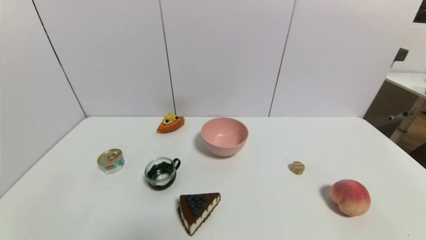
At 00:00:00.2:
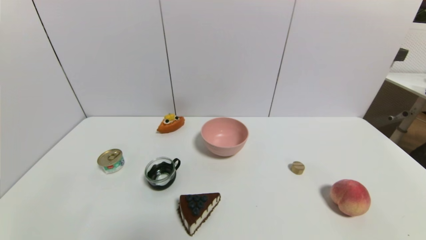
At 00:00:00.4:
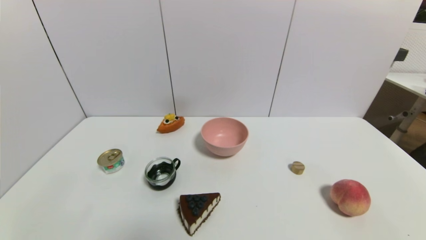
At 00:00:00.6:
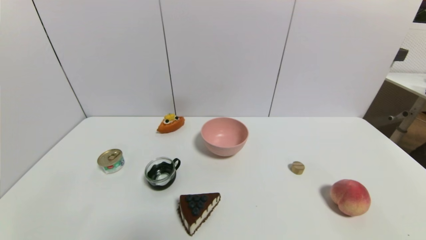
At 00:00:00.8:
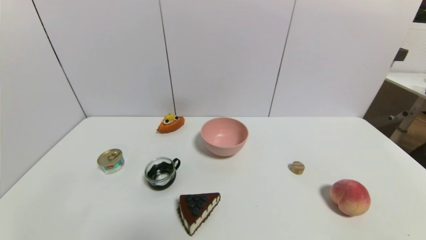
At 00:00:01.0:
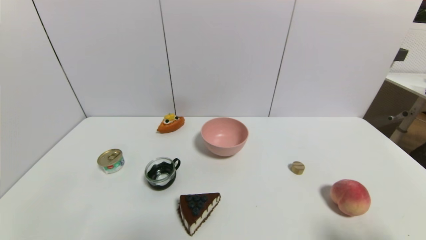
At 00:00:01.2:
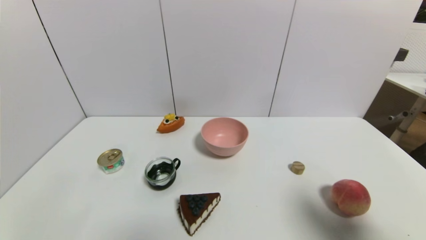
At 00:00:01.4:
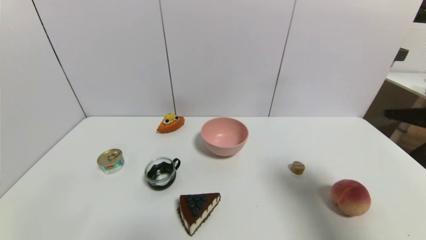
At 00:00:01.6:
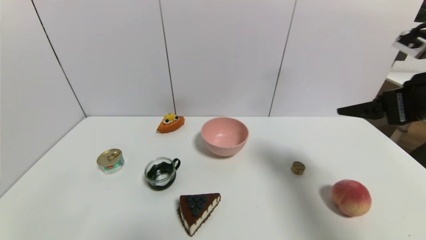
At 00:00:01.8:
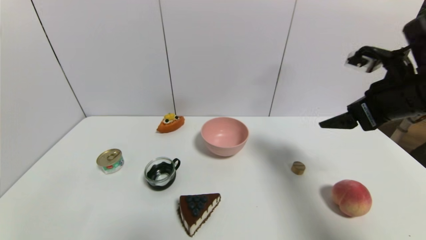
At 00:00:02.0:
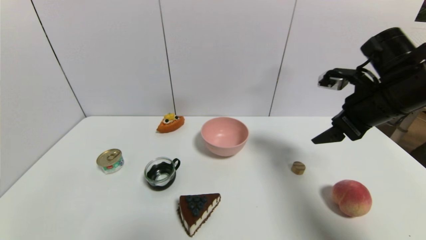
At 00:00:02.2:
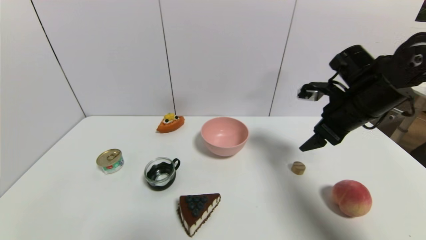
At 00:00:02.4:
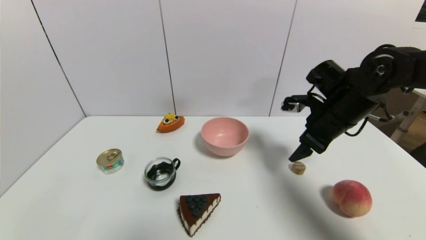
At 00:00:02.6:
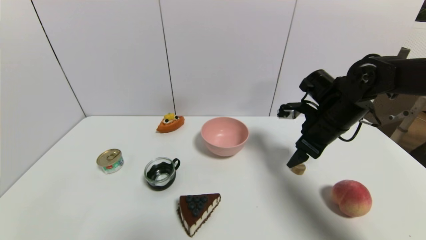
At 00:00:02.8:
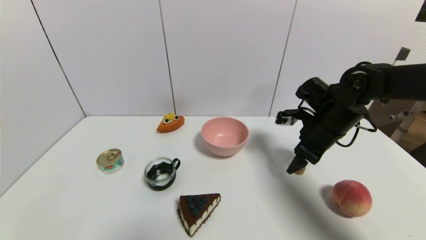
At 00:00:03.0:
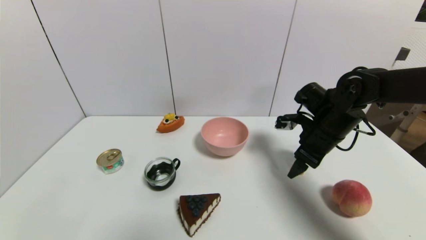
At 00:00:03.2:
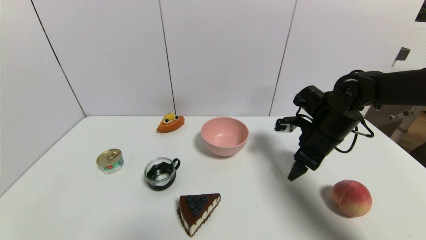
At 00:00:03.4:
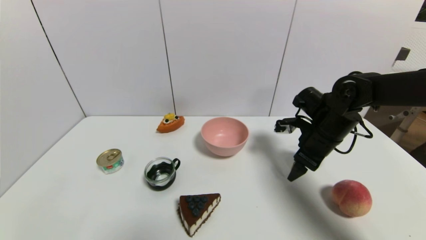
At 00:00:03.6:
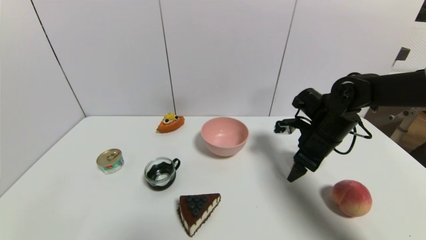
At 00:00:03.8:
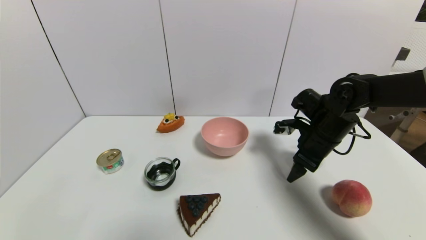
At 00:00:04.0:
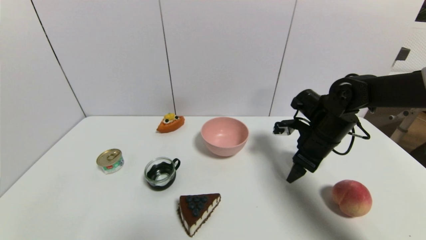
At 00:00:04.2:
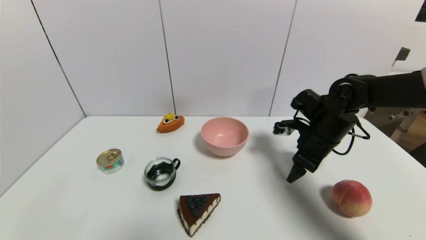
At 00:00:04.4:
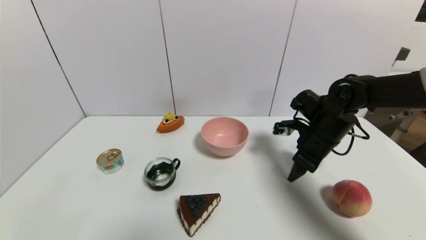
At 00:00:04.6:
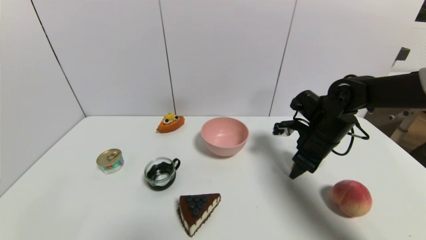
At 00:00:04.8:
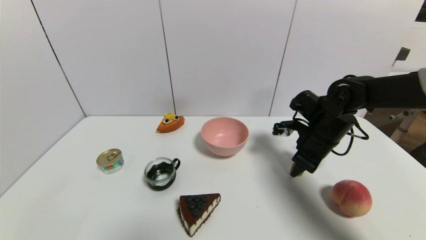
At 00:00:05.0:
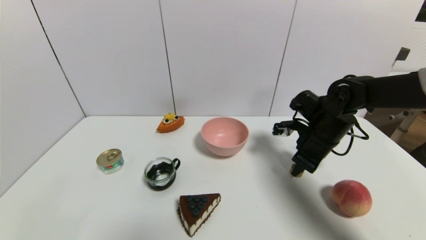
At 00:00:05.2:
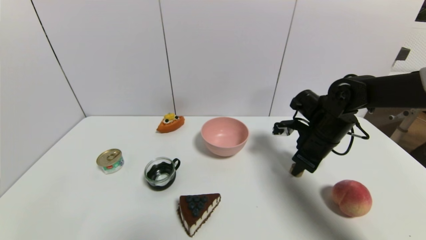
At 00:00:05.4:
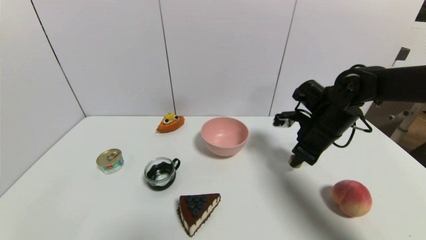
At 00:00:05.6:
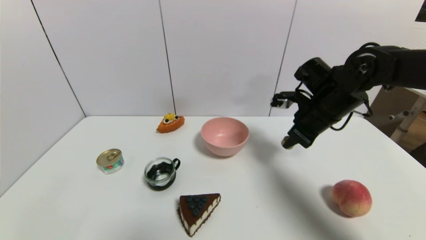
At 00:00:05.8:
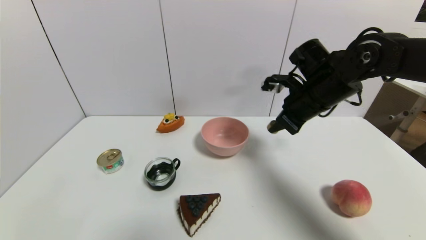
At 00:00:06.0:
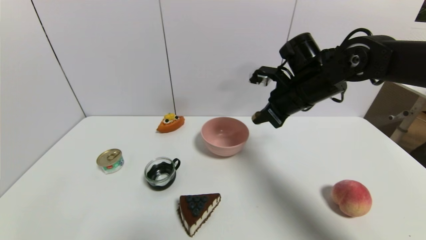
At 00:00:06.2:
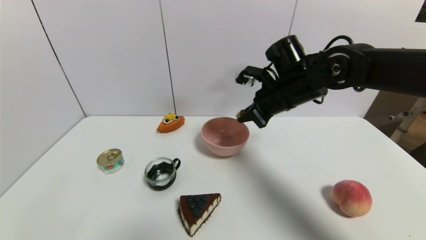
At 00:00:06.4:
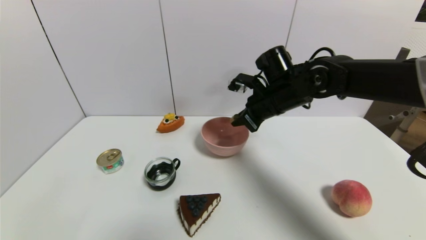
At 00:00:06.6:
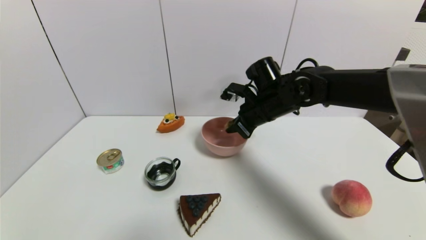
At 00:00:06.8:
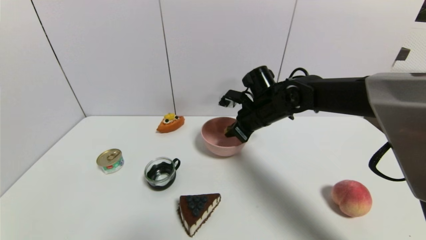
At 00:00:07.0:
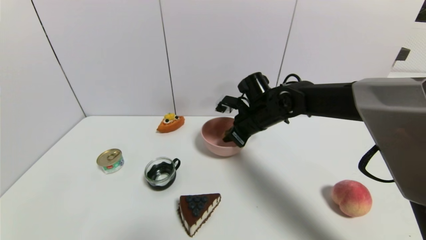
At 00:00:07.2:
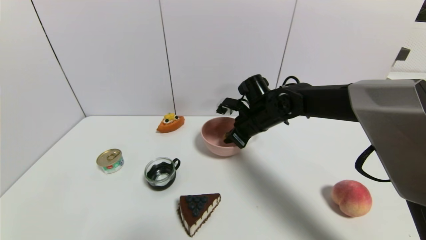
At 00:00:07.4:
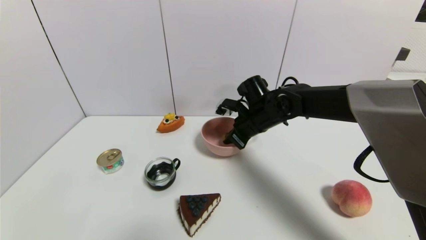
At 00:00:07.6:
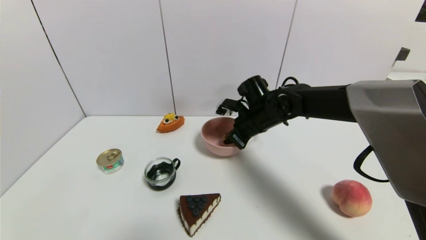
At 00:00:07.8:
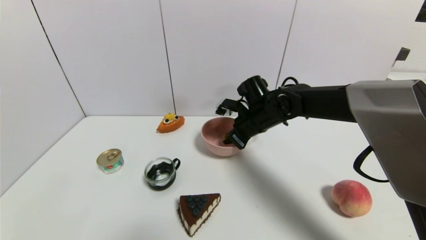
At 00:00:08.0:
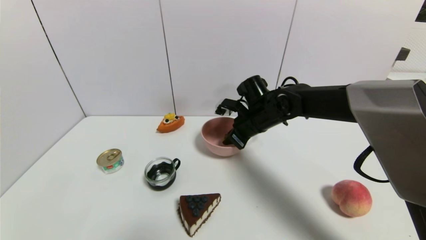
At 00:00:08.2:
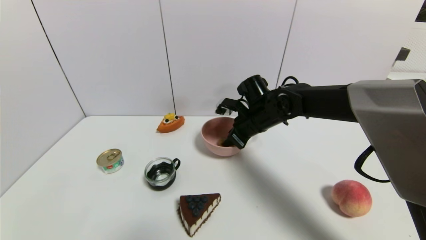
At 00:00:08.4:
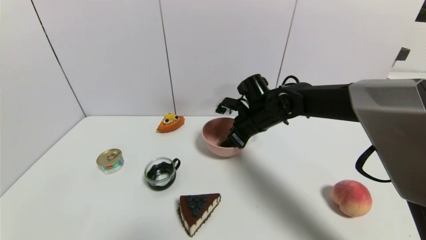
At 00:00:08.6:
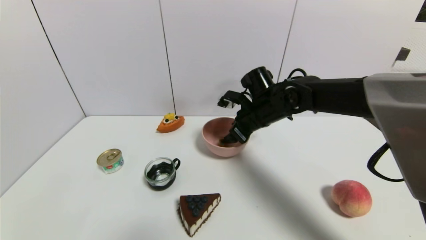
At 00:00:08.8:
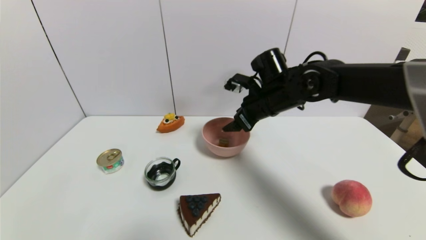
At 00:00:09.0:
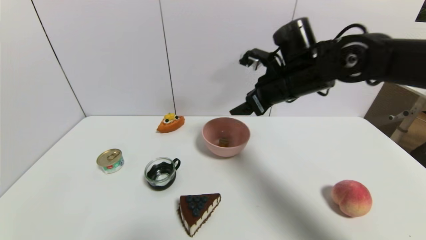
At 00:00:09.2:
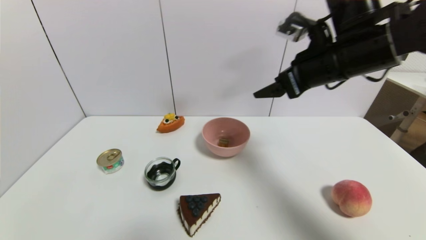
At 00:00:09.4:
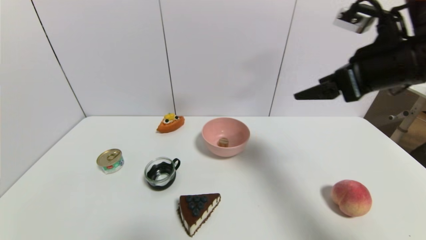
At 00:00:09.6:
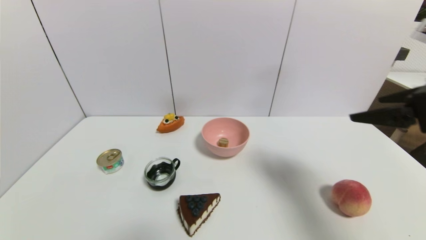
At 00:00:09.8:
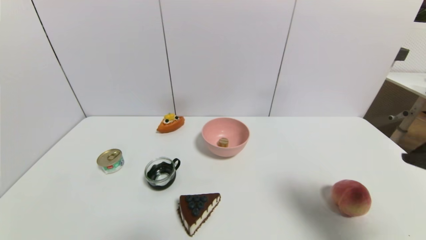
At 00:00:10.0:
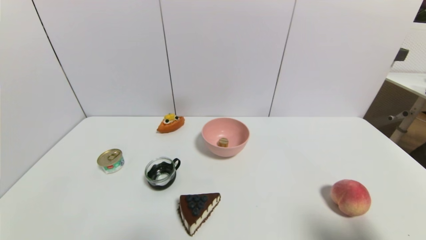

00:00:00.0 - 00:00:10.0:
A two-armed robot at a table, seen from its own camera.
Task of the whole recording: use a gripper to pick the target object and place on the pink bowl.
Step, 00:00:00.0 - 00:00:04.8: Grasp the round wooden block with the right gripper.
Step, 00:00:05.0 - 00:00:08.2: Place the round wooden block on the pink bowl with the right gripper.
00:00:00.0 - 00:00:01.4: The right gripper is displaced upward and forward by some 30 cm.
00:00:01.4 - 00:00:02.8: The right gripper heads forward, downward and to the left, covering some 25 cm.
00:00:02.8 - 00:00:04.2: There are only small adjustments of the grippers.
00:00:04.2 - 00:00:05.8: The right gripper goes some 10 cm upward, and closes.
00:00:05.8 - 00:00:07.2: The right gripper is displaced to the left and downward by roughly 10 cm.
00:00:07.2 - 00:00:08.6: The right gripper opens its fingers.
00:00:08.6 - 00:00:10.0: The right gripper goes about 40 cm backward and to the right.

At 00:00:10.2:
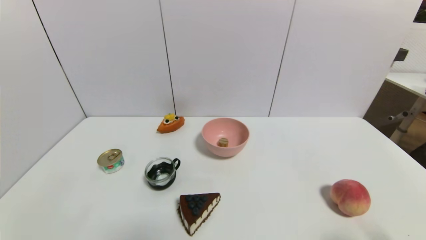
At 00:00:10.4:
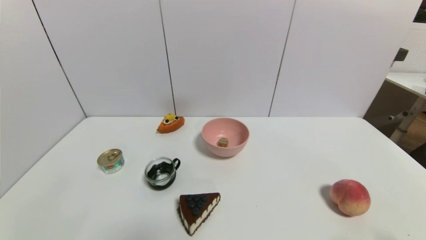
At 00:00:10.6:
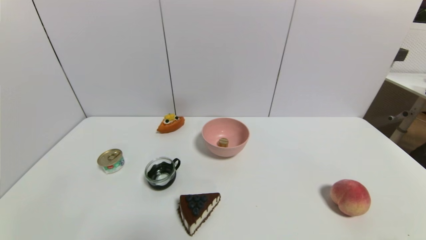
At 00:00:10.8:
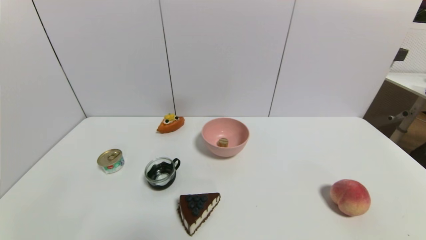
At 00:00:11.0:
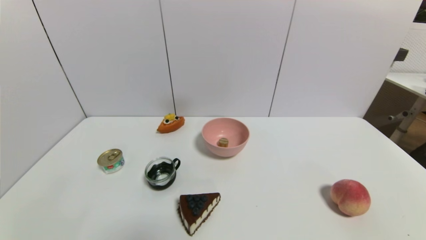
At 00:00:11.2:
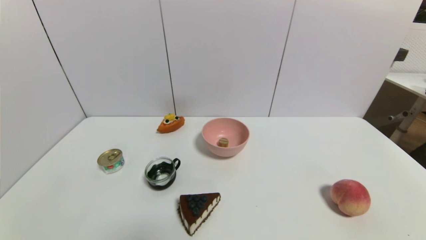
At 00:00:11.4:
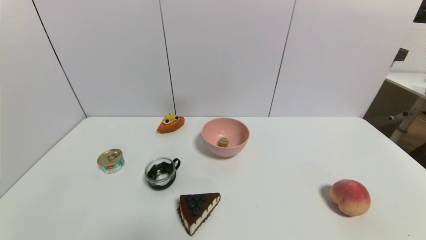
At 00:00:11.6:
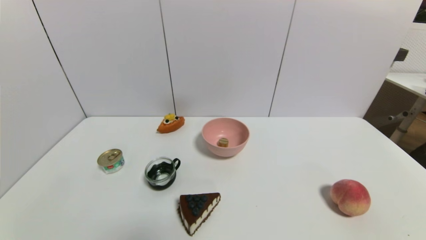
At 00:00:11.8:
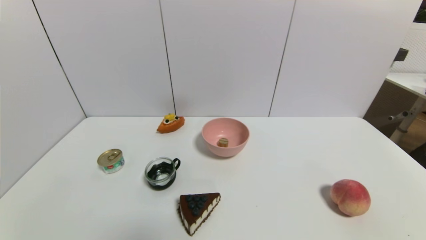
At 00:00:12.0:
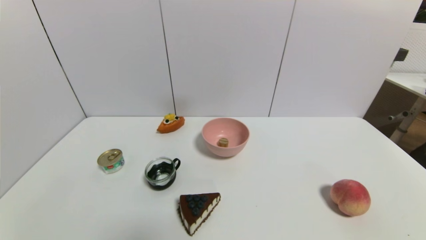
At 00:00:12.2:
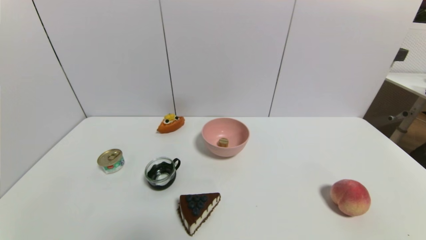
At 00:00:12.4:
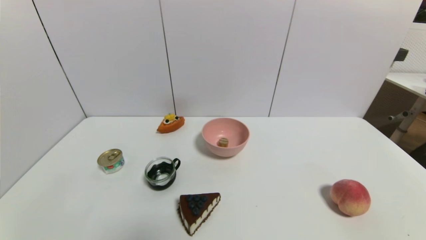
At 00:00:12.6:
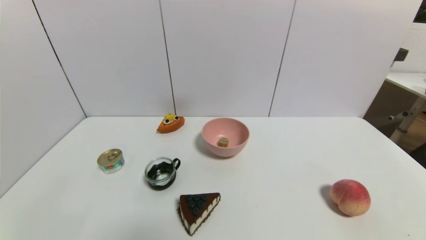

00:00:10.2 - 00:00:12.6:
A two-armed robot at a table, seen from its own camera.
Task of the whole recording: use a gripper to pick the target object and place on the pink bowl.
00:00:11.4 - 00:00:12.6: Both grippers stay about where they are.
